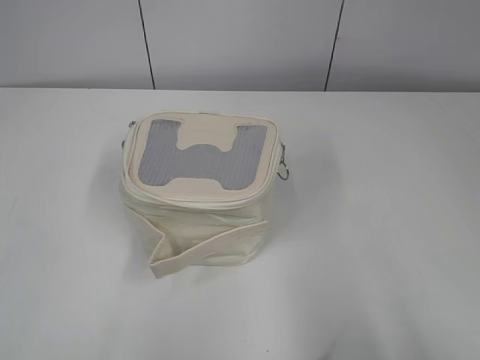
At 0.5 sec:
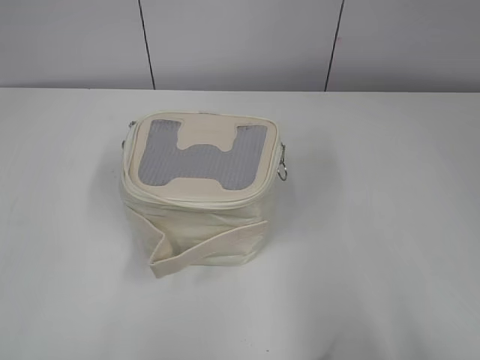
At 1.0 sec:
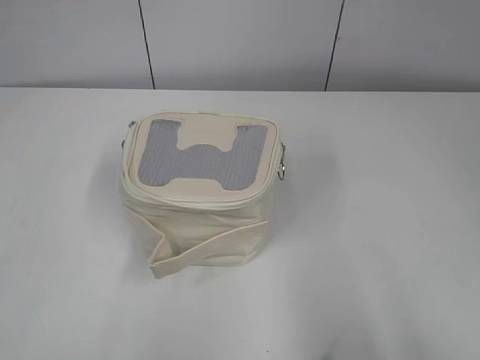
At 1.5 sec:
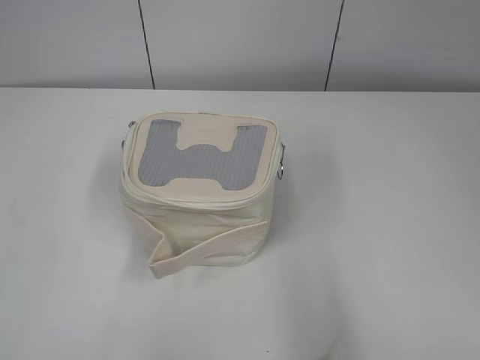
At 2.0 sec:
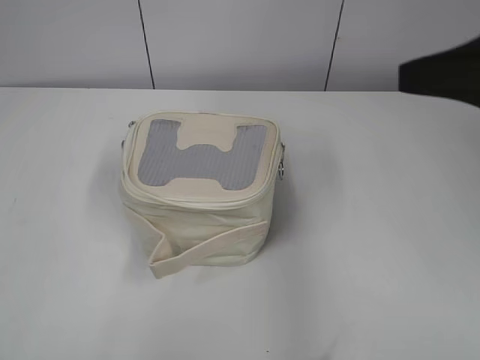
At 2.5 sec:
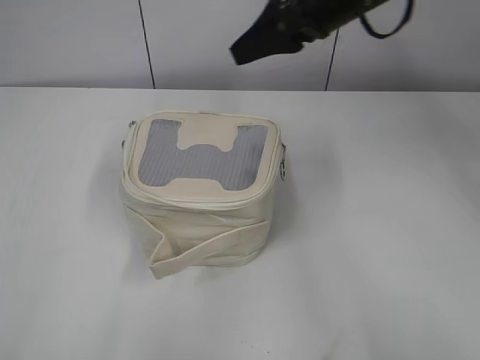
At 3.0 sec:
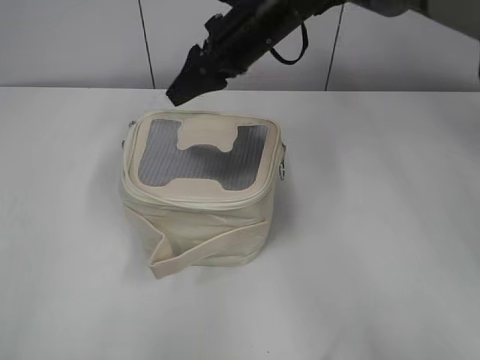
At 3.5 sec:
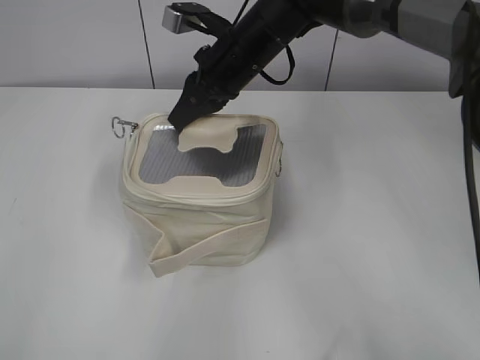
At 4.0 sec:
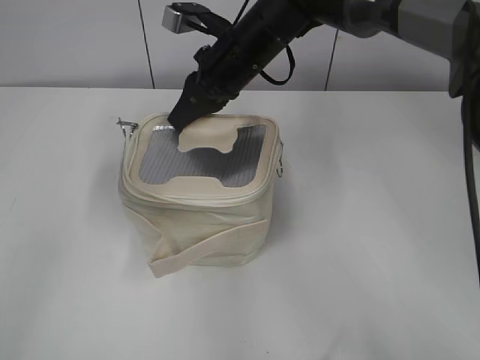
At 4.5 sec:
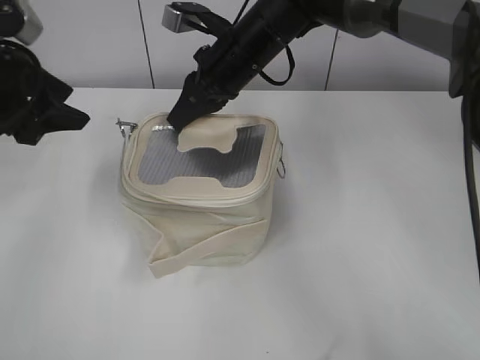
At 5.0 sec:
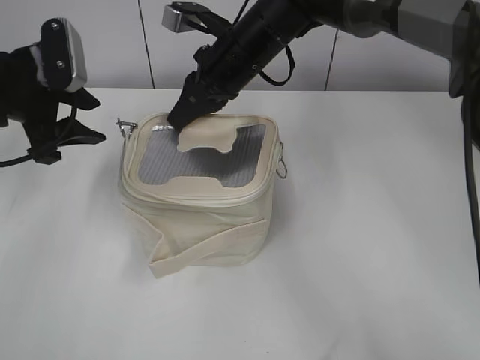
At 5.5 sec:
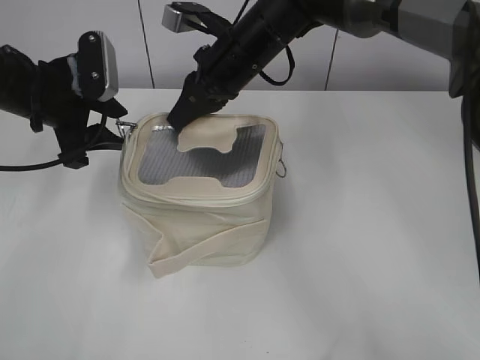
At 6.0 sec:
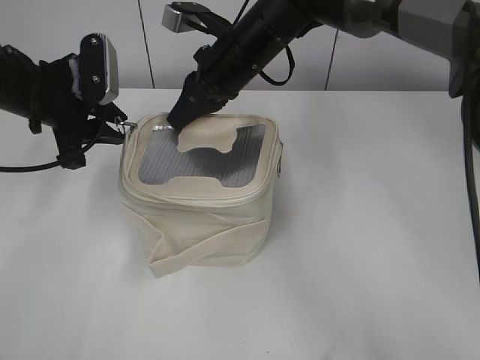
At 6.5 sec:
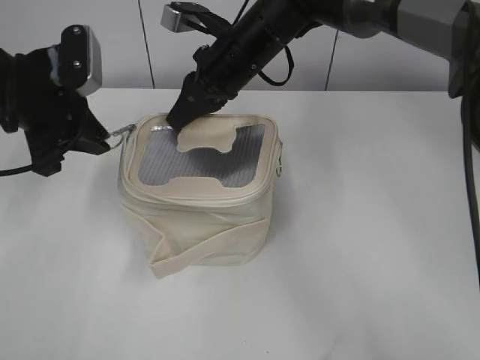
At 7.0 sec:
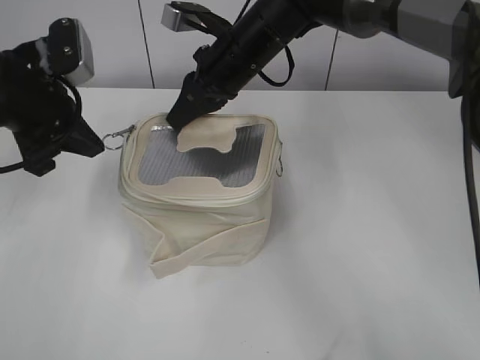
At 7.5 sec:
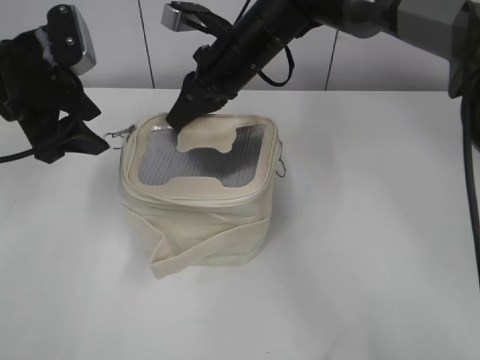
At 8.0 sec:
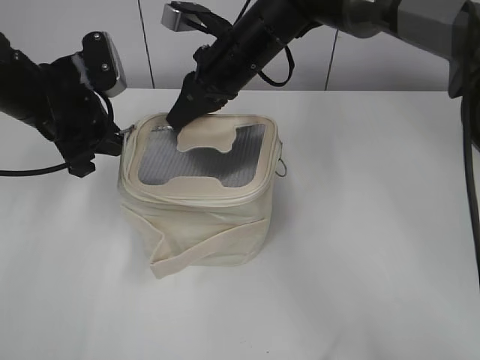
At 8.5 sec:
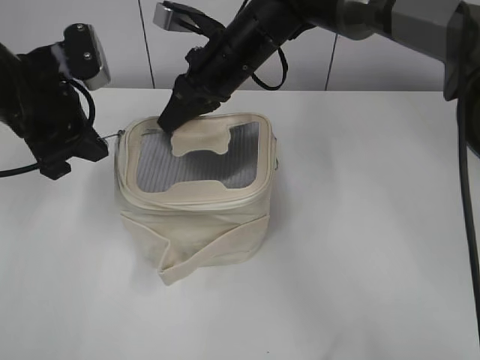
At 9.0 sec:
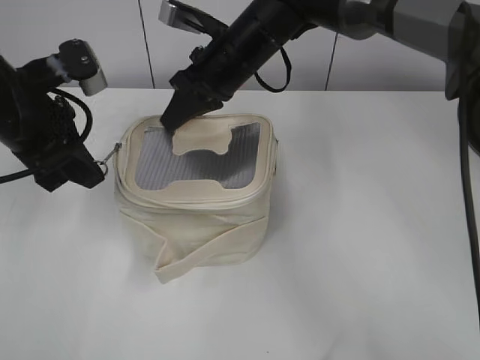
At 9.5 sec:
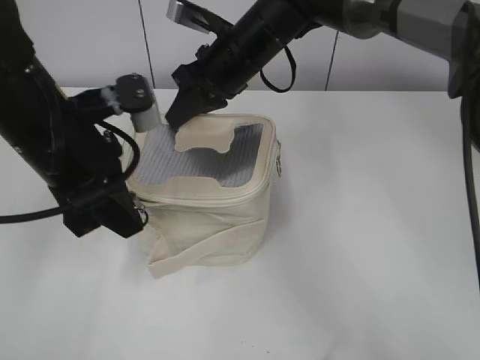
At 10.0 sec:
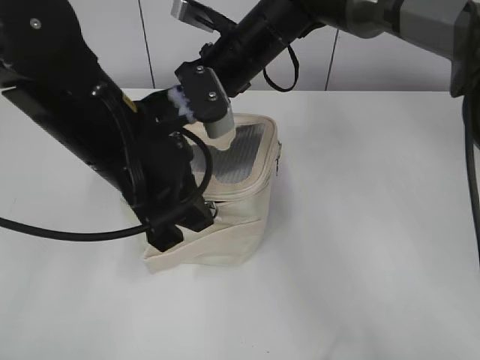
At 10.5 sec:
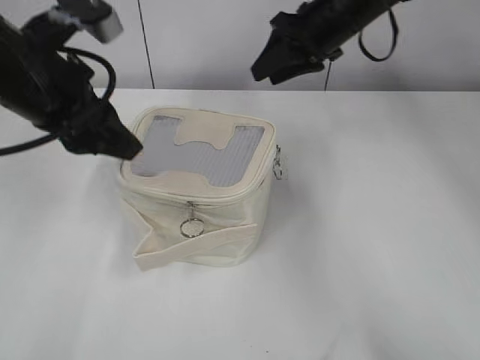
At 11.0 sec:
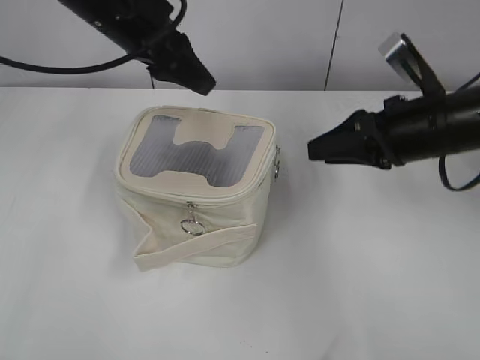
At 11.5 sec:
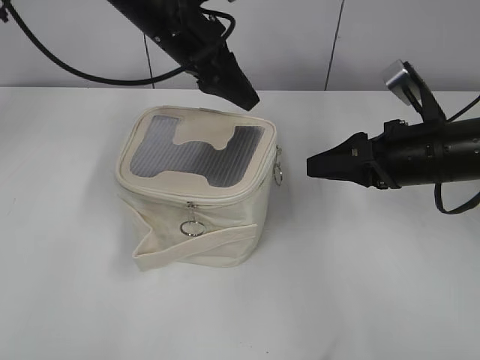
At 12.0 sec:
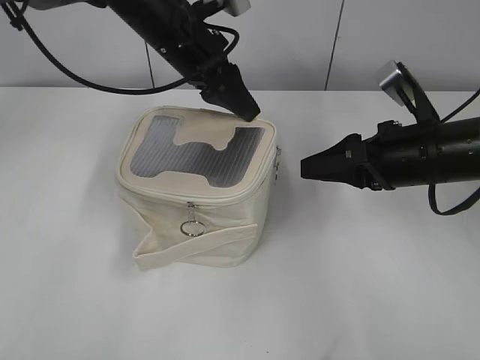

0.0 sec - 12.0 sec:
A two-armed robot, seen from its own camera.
Step, 0.0 sec - 10.0 sec: Zip up the bag with your left hand.
2.0 sec - 4.0 sec: The right gripper is displaced to the left, forward and downward by about 35 cm, and closes up. The left gripper is displaced forward by about 15 cm, and opens its fingers.
4.0 sec - 6.0 sec: The left gripper is displaced forward and downward by about 20 cm, and closes its fingers.
6.0 sec - 8.0 sec: The left gripper closes, then reopens.
8.0 sec - 10.0 sec: The left gripper heads to the right and backward, covering approximately 15 cm, and closes.
10.0 sec - 12.0 sec: The right gripper travels to the right and backward by roughly 25 cm, and opens its fingers; the left gripper heads forward, covering roughly 20 cm, and opens.

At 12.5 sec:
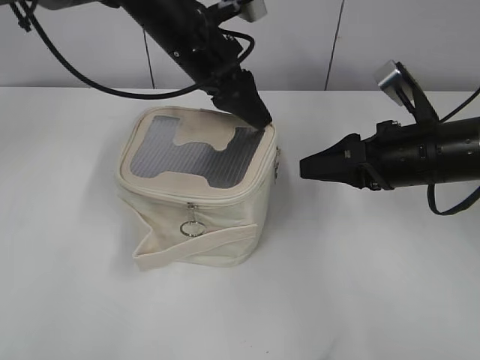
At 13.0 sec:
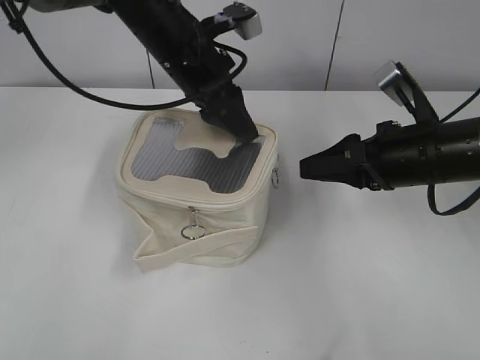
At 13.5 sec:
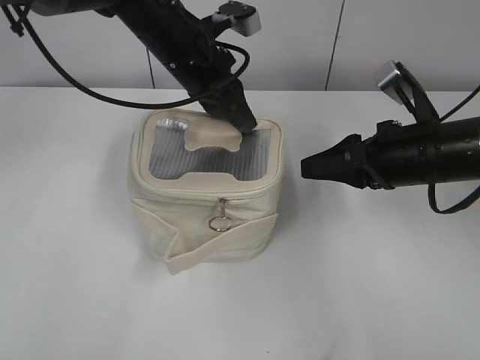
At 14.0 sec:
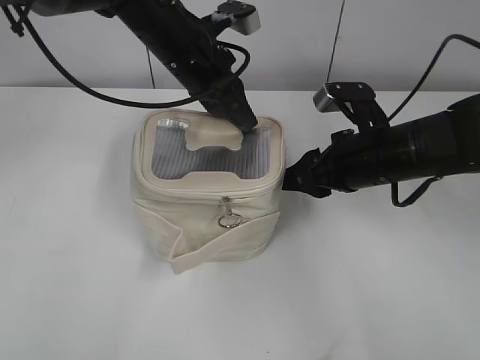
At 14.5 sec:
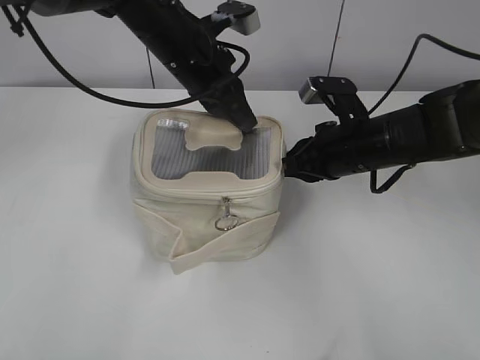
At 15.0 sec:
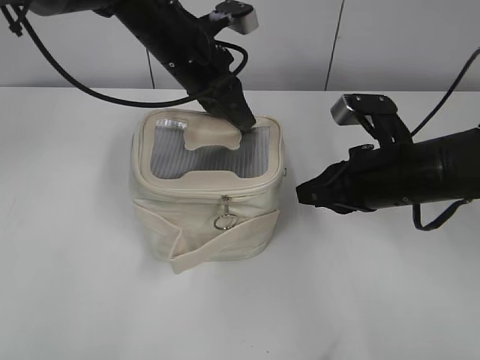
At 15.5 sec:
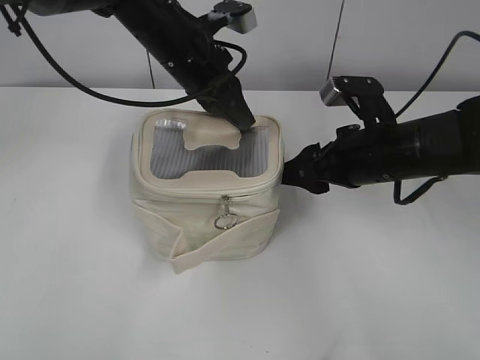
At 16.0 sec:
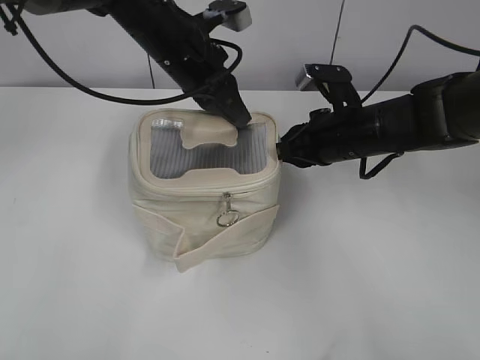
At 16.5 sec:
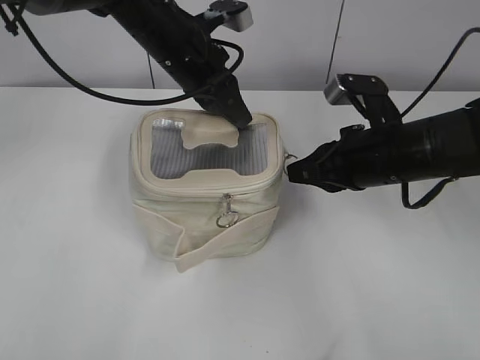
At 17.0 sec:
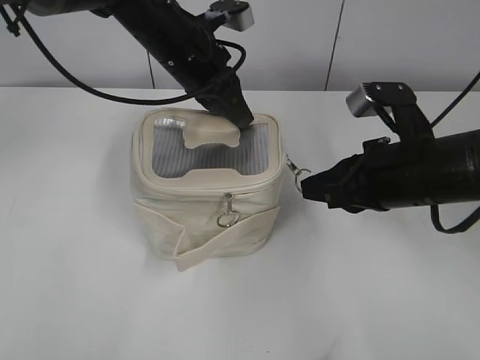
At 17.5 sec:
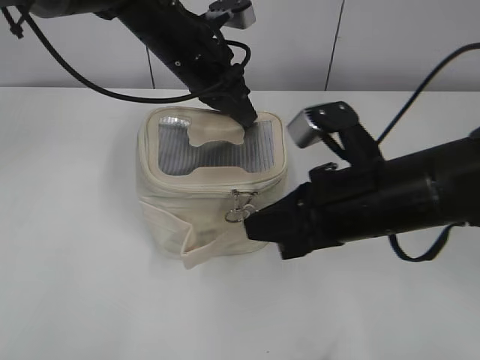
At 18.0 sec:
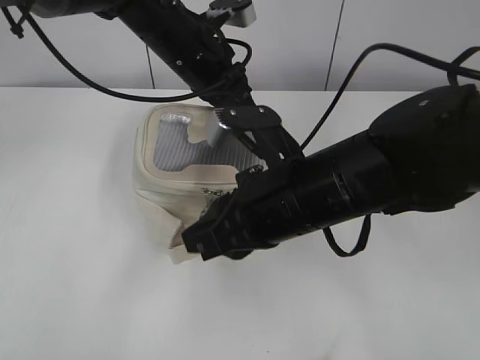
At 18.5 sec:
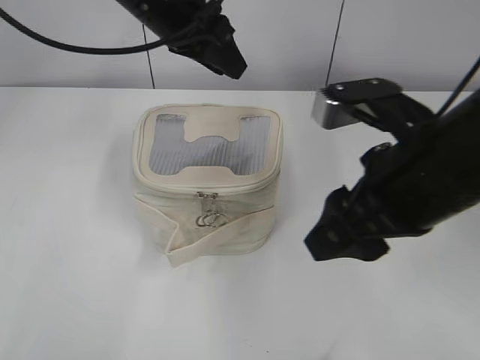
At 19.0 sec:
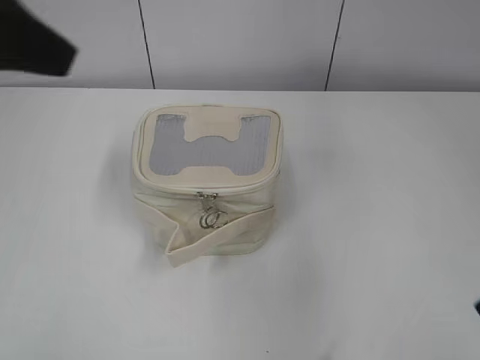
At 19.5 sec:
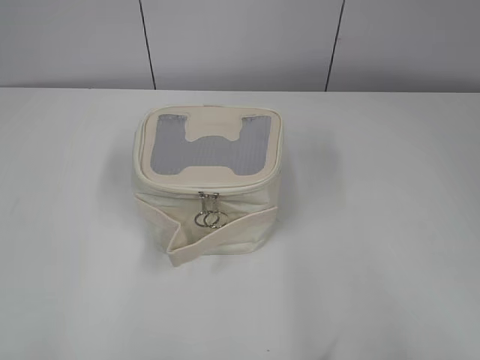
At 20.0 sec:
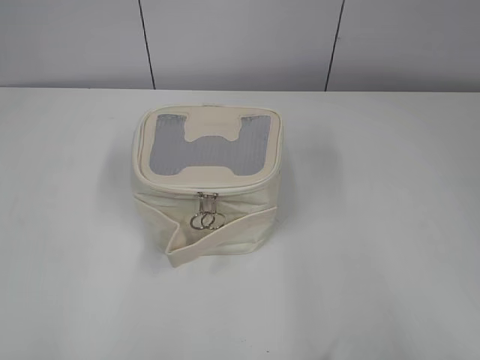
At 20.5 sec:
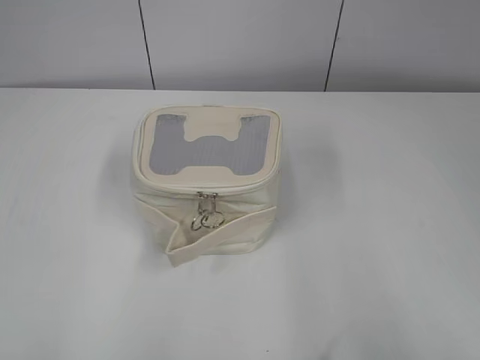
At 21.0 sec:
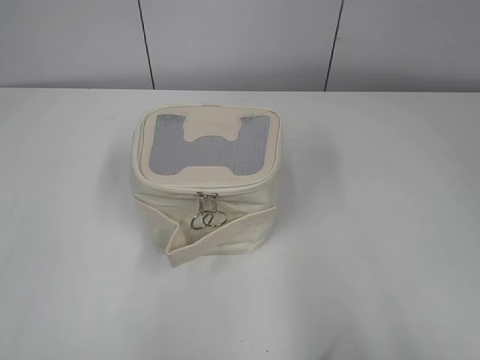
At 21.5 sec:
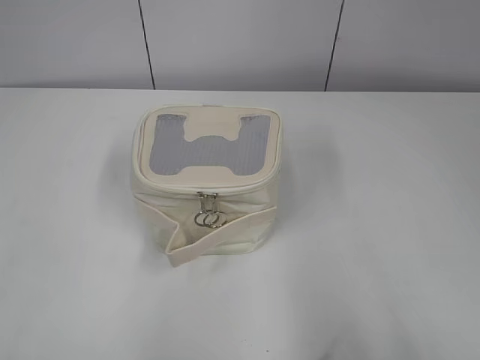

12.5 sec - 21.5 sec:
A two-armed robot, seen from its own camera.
Step, 12.5 sec - 18.0 sec: Zip up the bag with your right hand.
12.5 sec - 14.5 sec: The right gripper ends up roughly 10 cm from where it was, and closes its fingers. Meanwhile the left gripper closes up.
14.5 sec - 17.0 sec: The right gripper goes forward and backward, some 10 cm each way, reversing 2 times, and opens, then closes once more.
17.0 sec - 19.5 sec: The left gripper travels backward and to the left by approximately 50 cm, and opens its fingers, while the right gripper goes some 30 cm backward, to the right and upward, and opens up.
